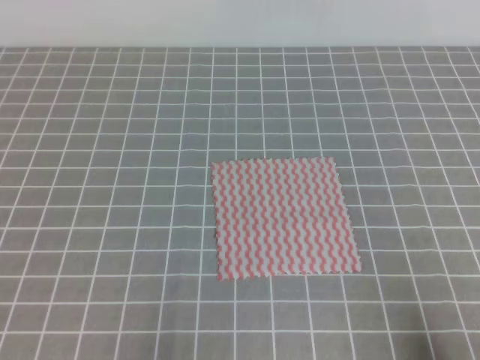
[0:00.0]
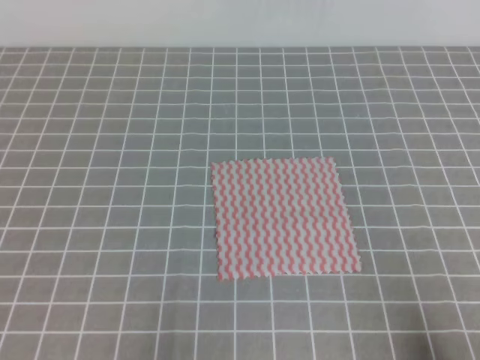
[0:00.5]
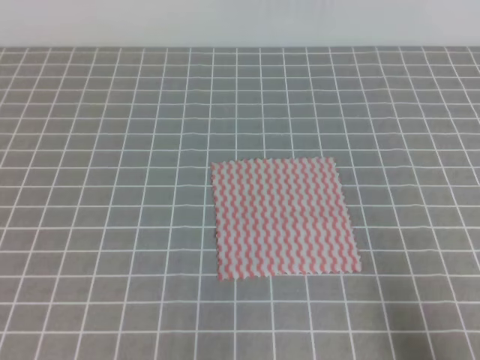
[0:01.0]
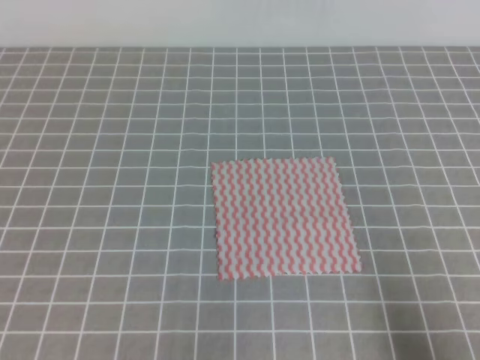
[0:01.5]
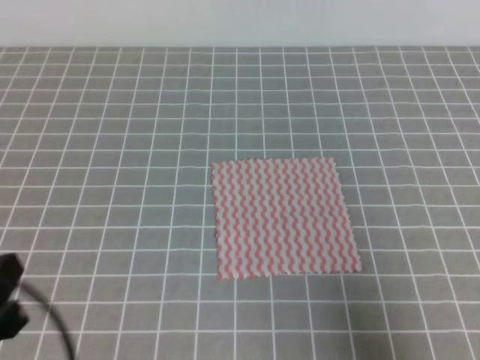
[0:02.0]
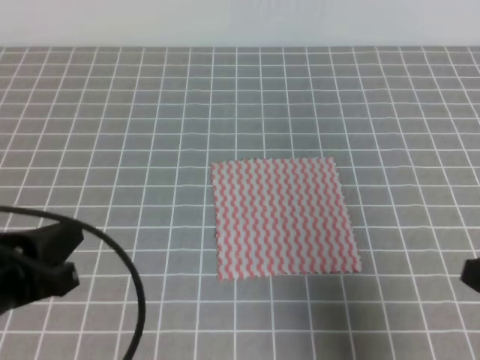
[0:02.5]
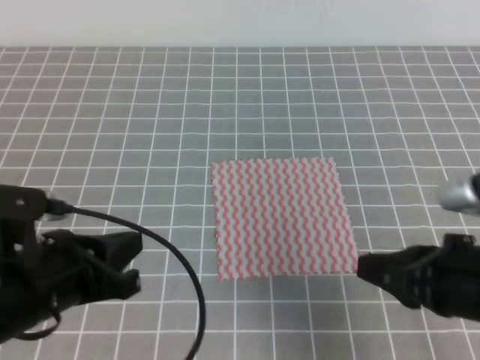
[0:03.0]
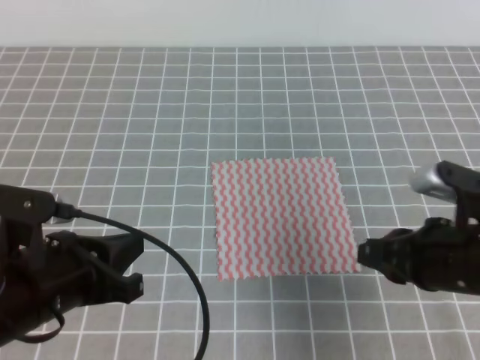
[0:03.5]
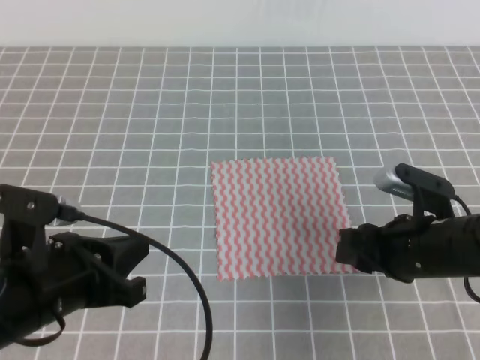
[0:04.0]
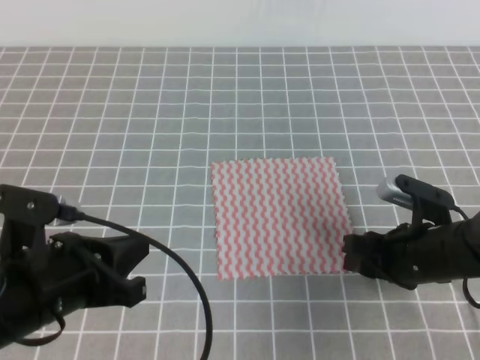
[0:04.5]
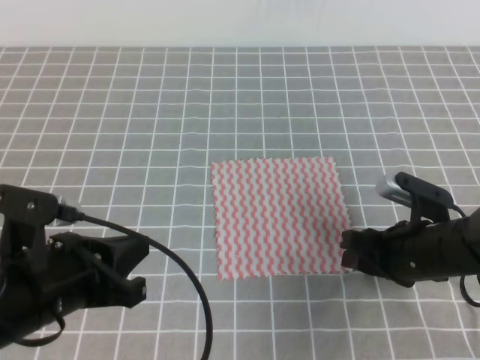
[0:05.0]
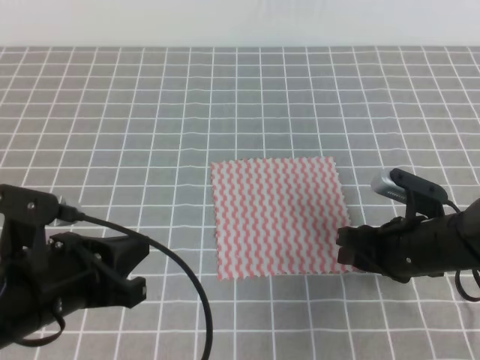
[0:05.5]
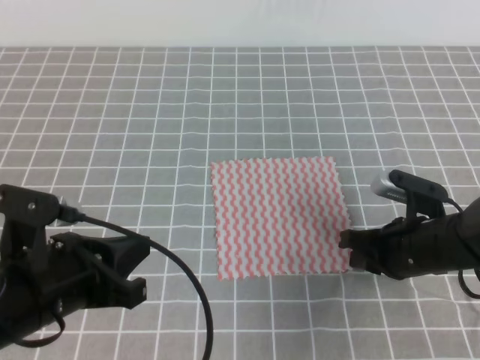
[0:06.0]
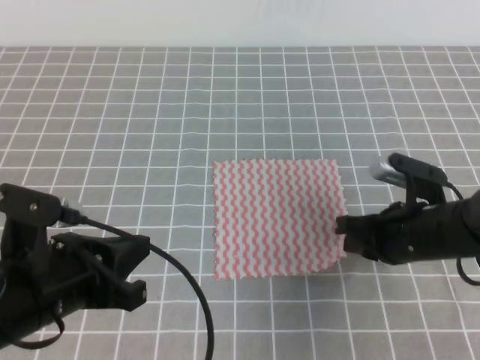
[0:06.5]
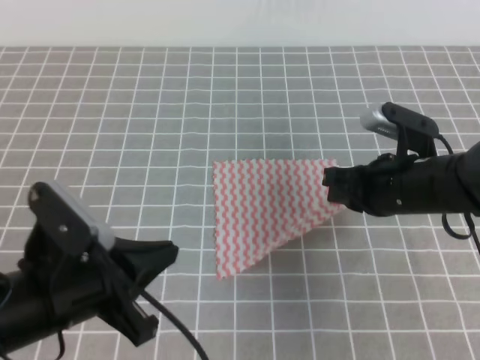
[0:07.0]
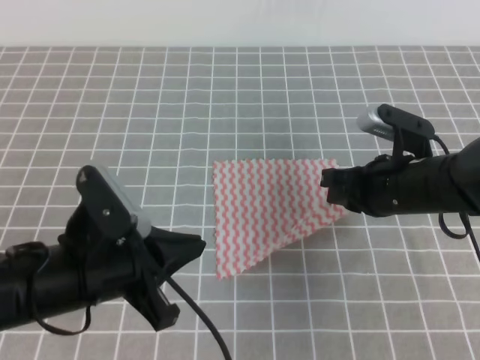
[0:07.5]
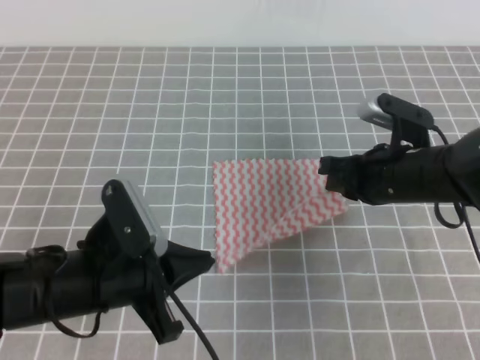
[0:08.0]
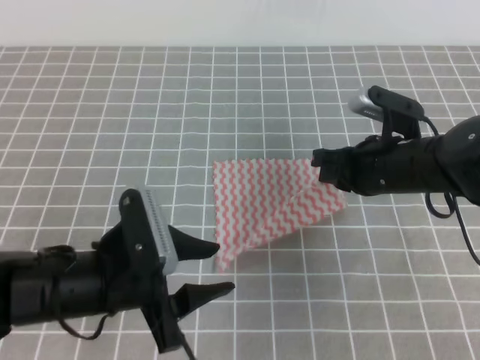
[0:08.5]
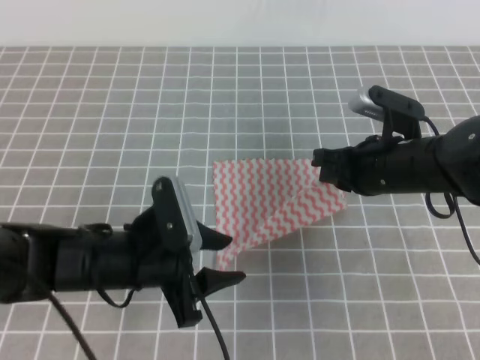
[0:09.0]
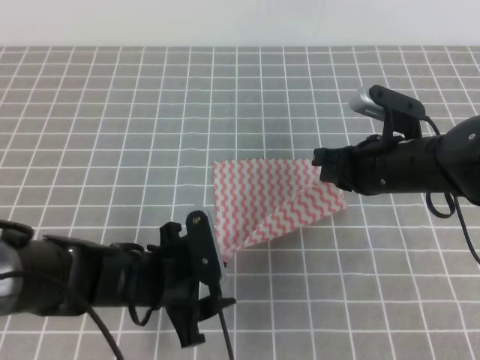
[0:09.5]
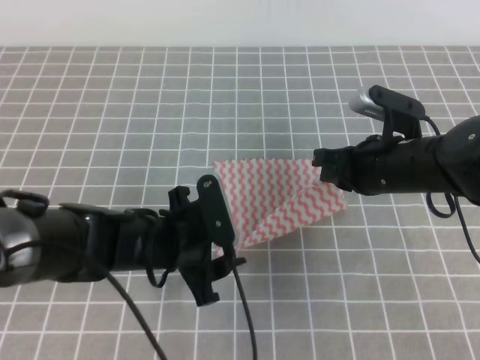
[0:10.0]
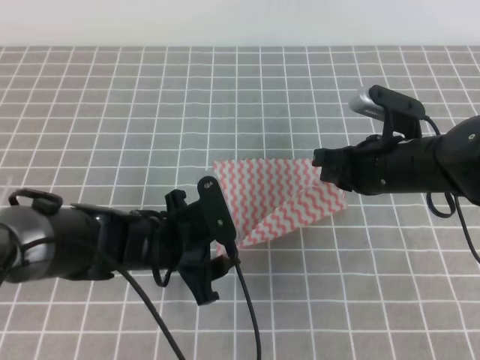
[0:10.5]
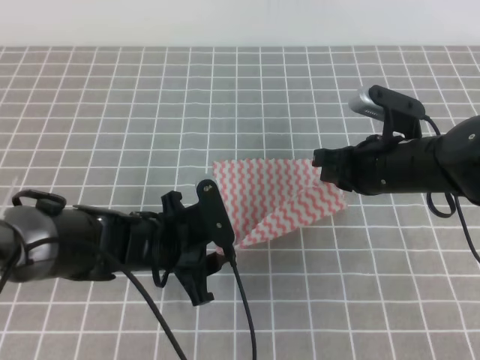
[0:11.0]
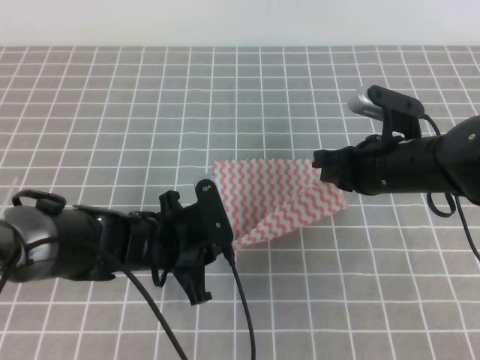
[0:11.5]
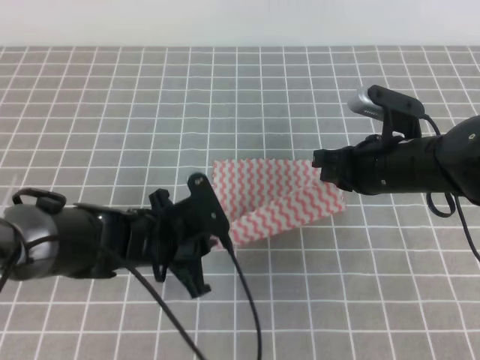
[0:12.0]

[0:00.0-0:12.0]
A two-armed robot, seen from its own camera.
0:00.0 to 0:02.0: The grippers both shift upward by roughly 5 cm.
0:02.0 to 0:04.0: The left gripper moves forward and to the right, about 10 cm, while the right gripper shifts about 20 cm forward and to the left, and opens up.
0:04.0 to 0:06.0: The right gripper closes.
0:06.0 to 0:08.0: The left gripper changes place by about 5 cm; the right gripper shifts some 5 cm upward.
0:08.0 to 0:10.0: The left gripper heads forward and to the right, covering approximately 10 cm, and opens its fingers.
0:10.0 to 0:12.0: The left gripper closes.

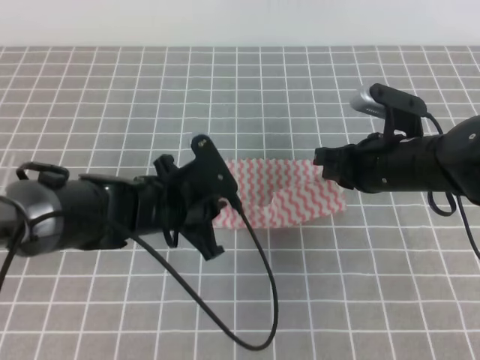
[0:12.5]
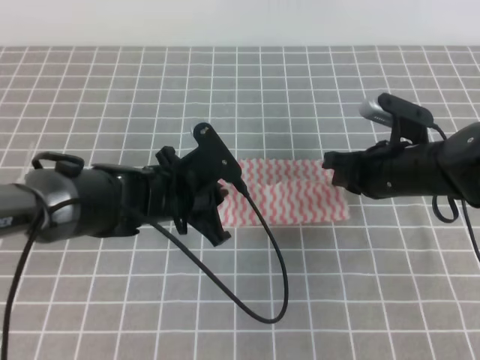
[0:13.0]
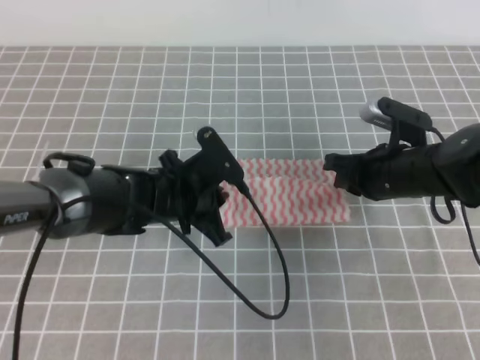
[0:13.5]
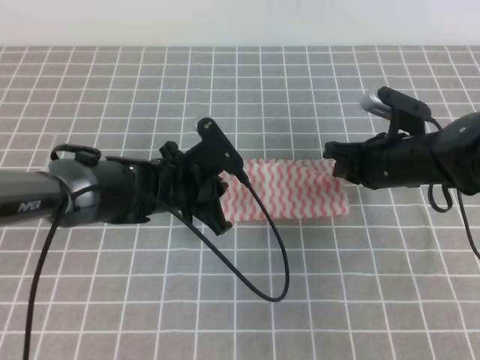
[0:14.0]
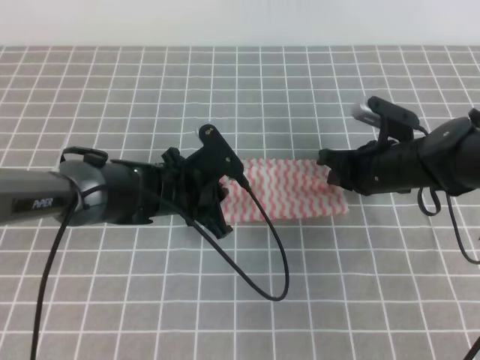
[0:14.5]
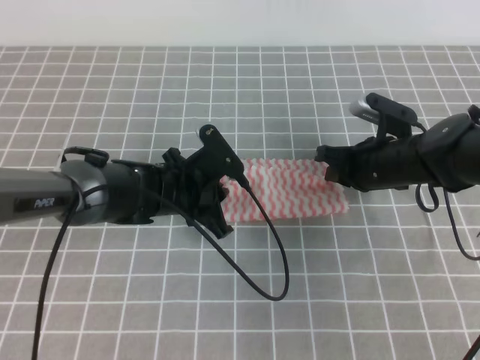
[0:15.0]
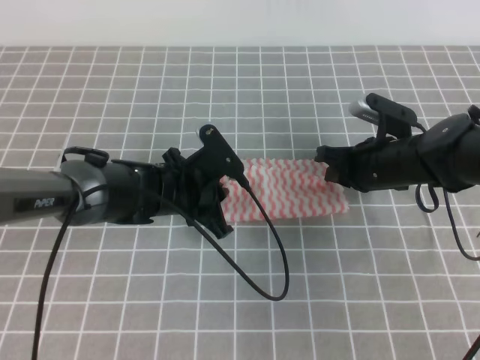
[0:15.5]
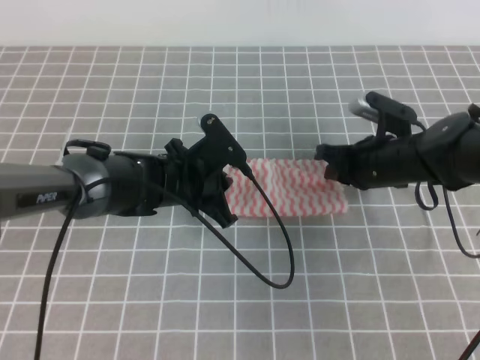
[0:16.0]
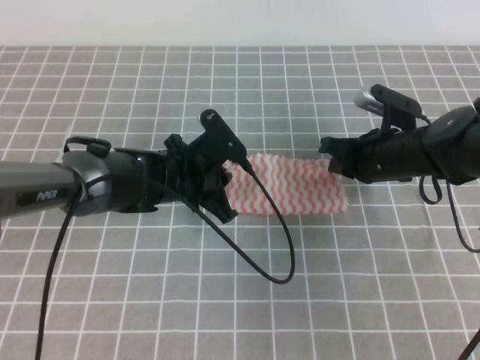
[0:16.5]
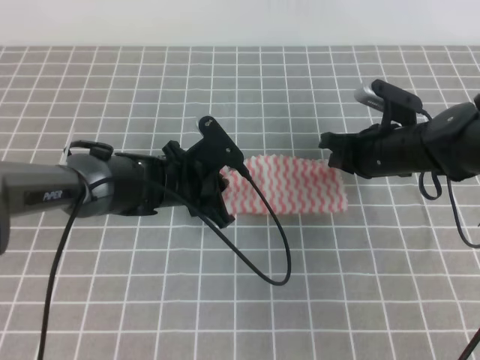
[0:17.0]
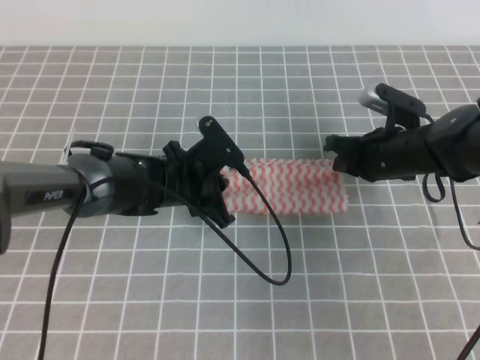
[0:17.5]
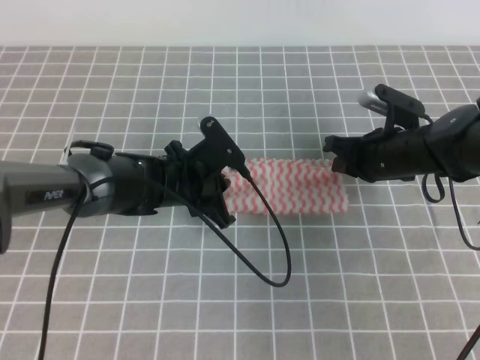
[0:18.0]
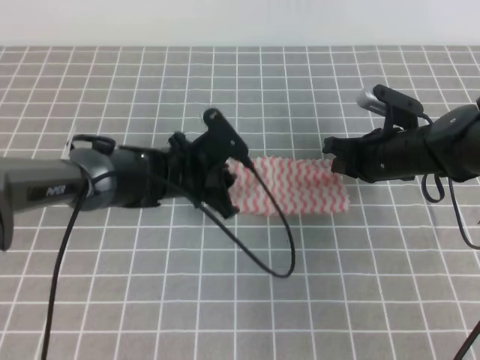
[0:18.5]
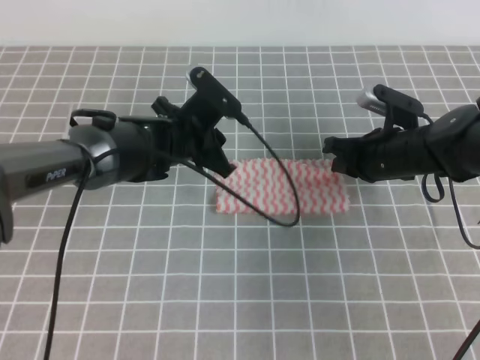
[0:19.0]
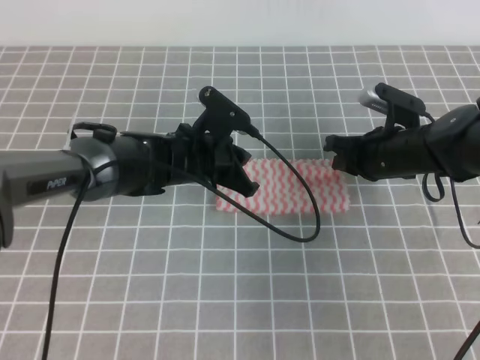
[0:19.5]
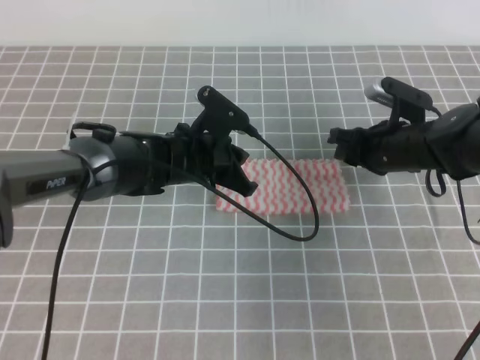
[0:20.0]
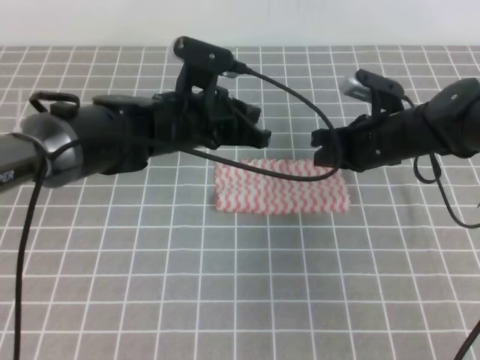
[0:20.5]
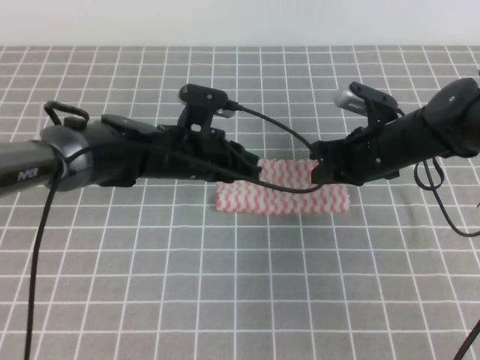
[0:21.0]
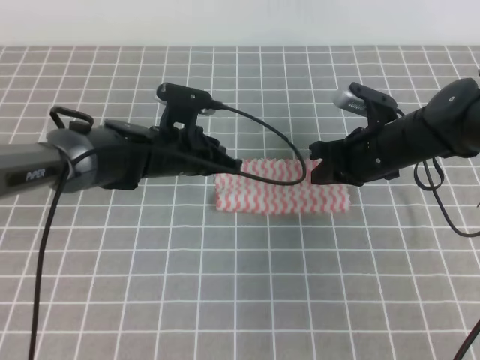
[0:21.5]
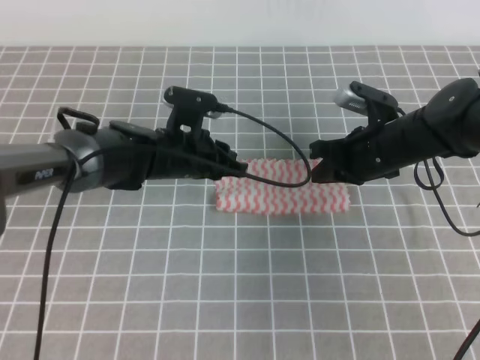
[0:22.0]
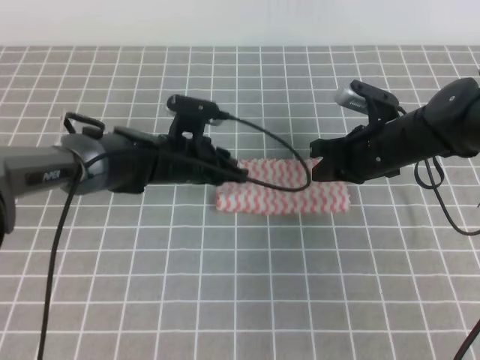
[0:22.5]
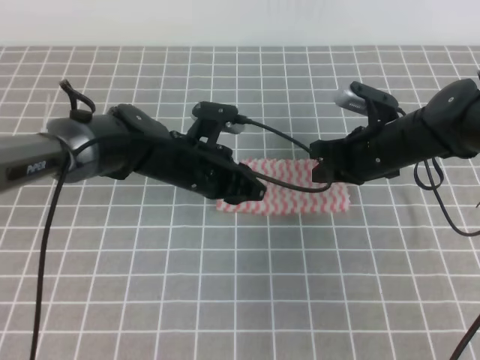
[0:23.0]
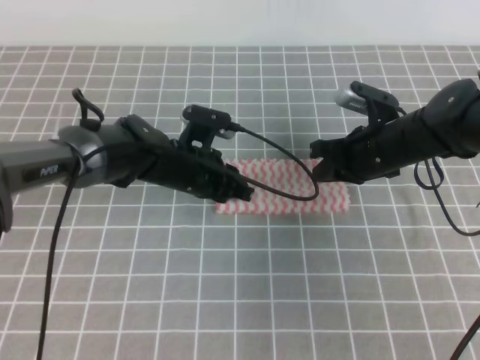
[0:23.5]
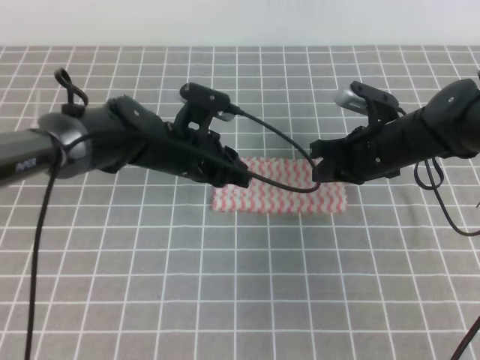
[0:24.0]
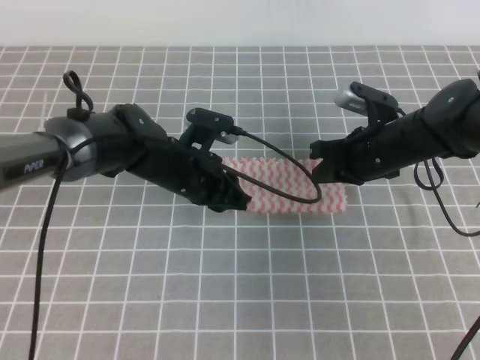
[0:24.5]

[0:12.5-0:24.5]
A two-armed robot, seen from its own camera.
0:12.5 to 0:14.5: The left gripper goes about 5 cm forward; the right gripper changes place by about 5 cm.
0:14.5 to 0:16.5: The grippers stay close to where they were, moving slightly.
0:16.5 to 0:18.5: The left gripper opens.
0:18.5 to 0:20.5: The left gripper goes some 10 cm upward. Meanwhile the right gripper opens, then closes once more.
0:20.5 to 0:22.5: The left gripper heads downward, covering approximately 5 cm, and opens up.

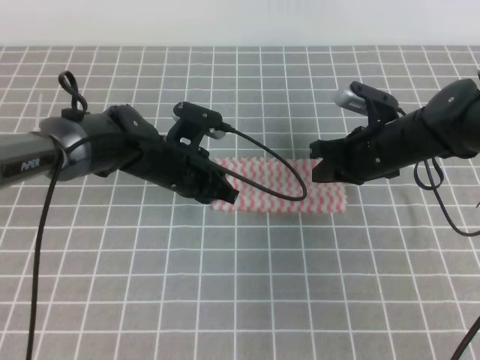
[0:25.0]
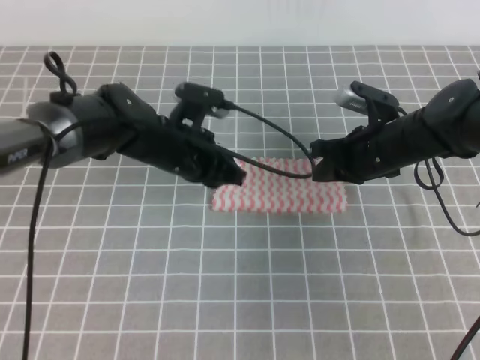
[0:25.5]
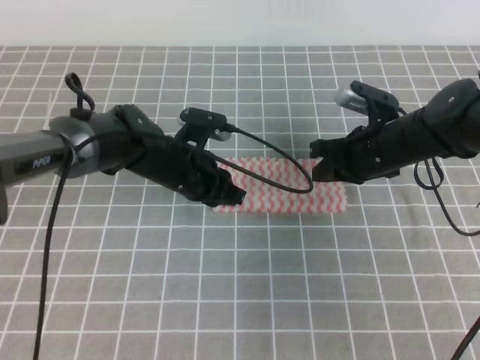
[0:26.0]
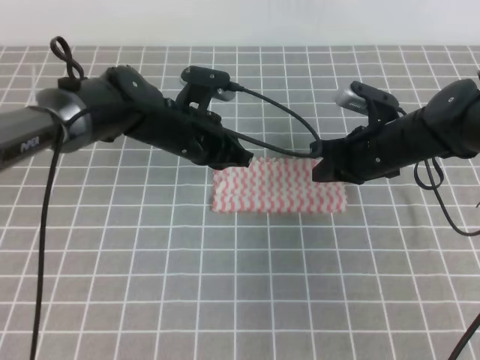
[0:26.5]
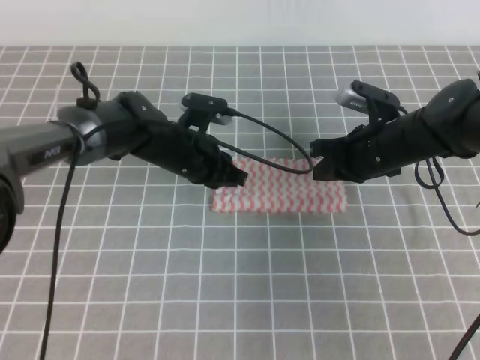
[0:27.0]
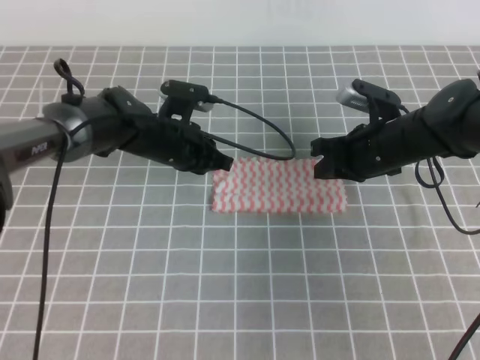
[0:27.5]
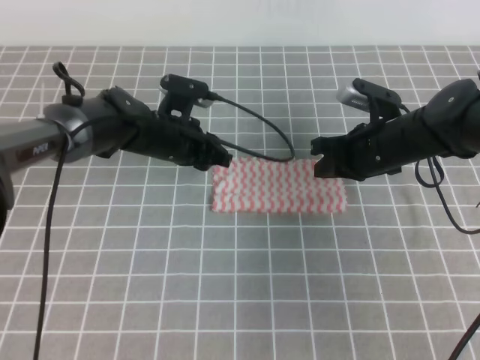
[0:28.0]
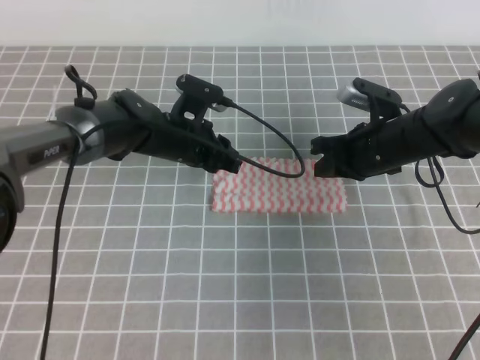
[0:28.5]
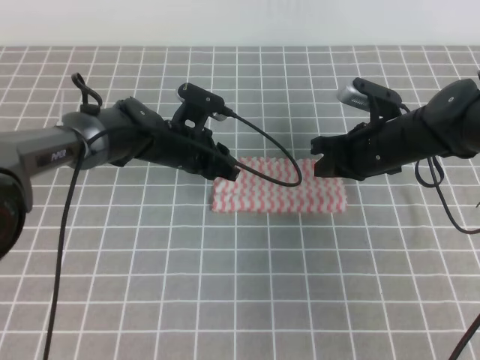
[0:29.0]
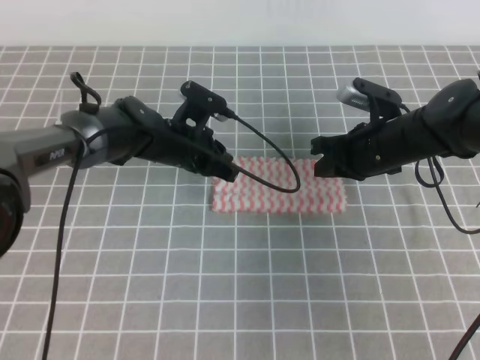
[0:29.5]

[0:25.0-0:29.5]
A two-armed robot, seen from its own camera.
0:25.0 to 0:27.0: The grippers stay close to where they were, moving slightly.
0:27.0 to 0:29.5: The left gripper opens, then closes once more.
